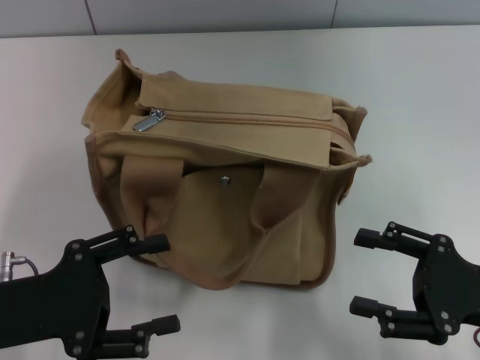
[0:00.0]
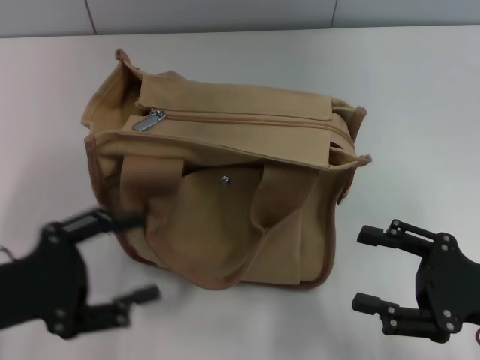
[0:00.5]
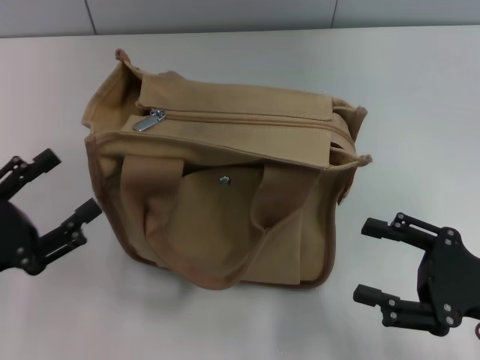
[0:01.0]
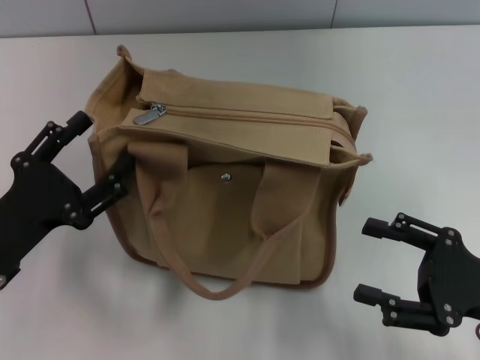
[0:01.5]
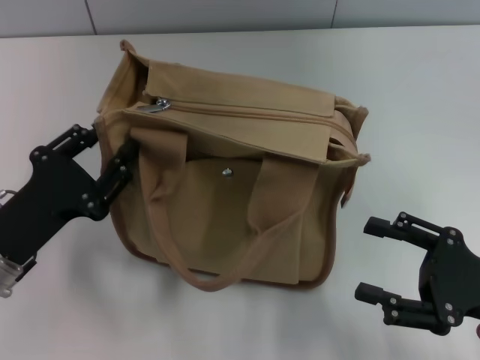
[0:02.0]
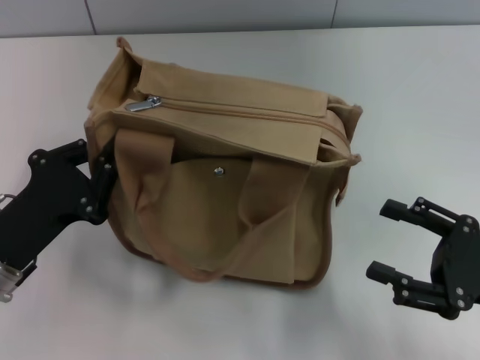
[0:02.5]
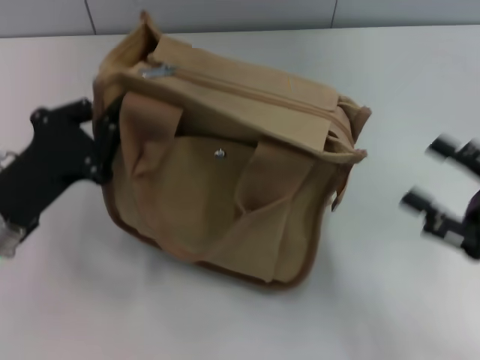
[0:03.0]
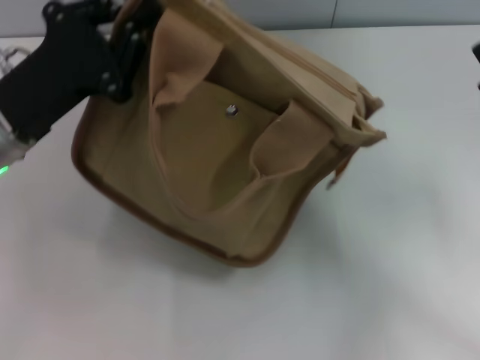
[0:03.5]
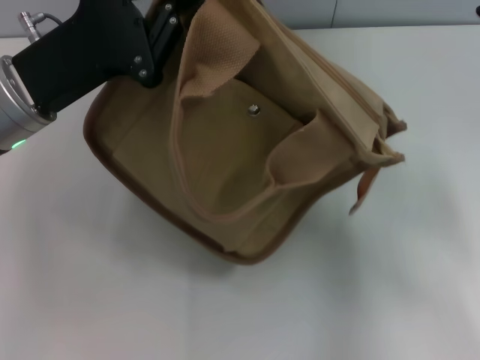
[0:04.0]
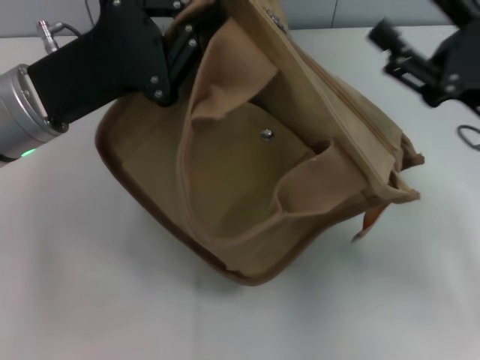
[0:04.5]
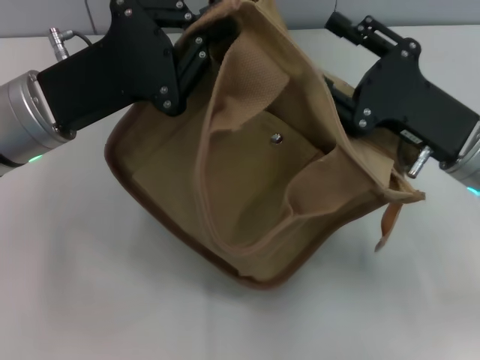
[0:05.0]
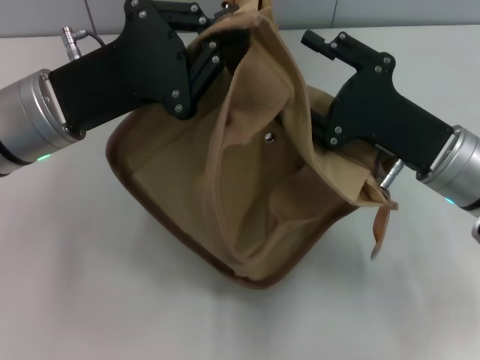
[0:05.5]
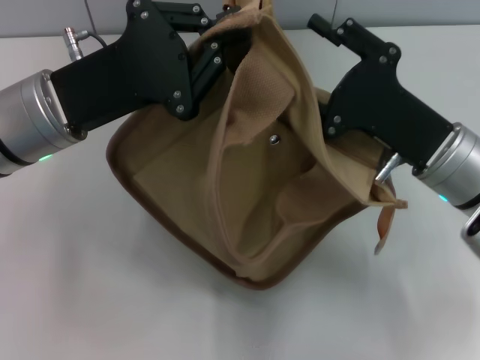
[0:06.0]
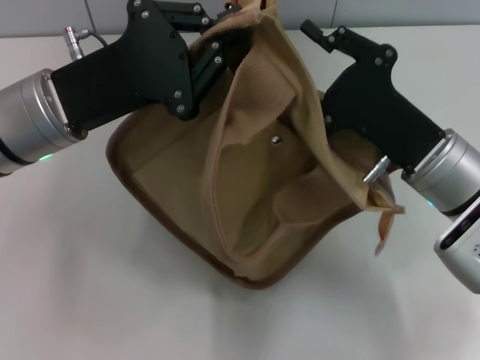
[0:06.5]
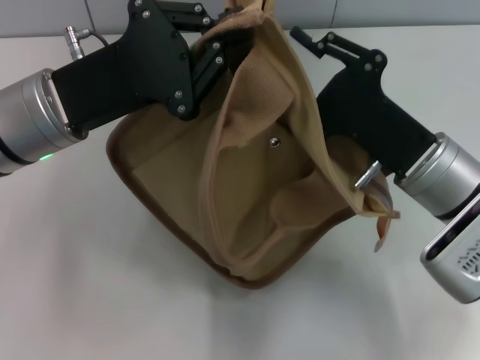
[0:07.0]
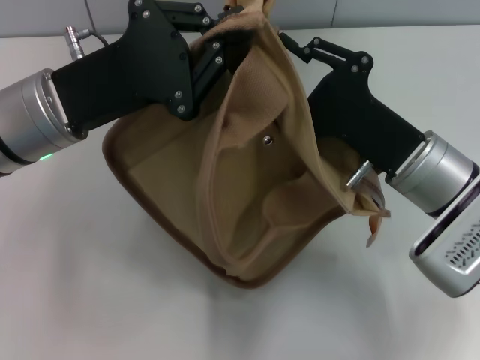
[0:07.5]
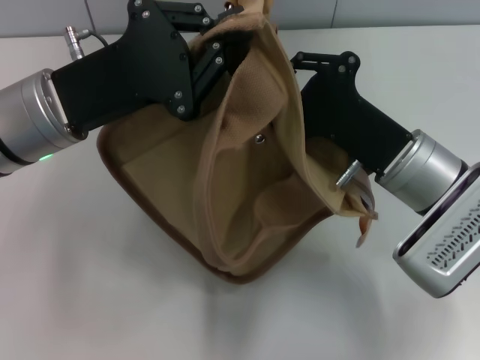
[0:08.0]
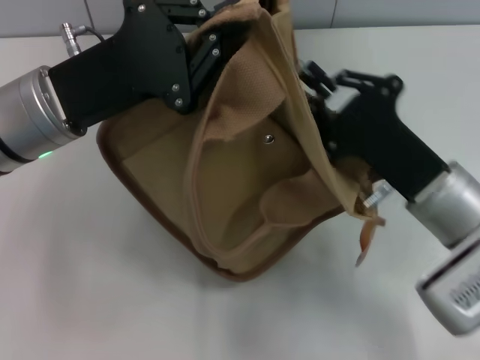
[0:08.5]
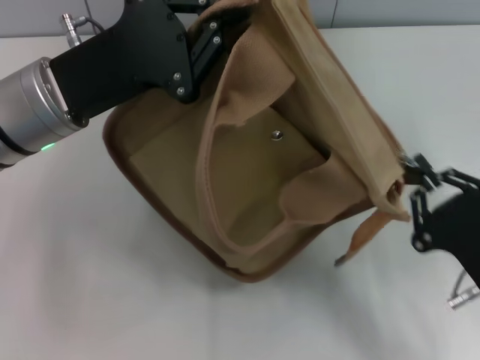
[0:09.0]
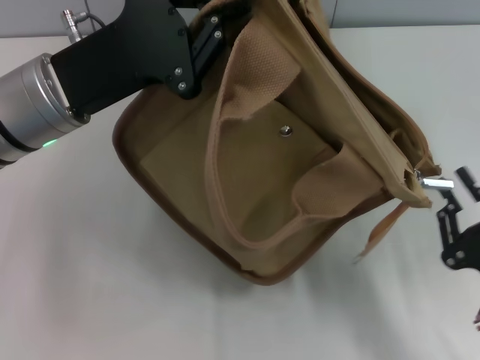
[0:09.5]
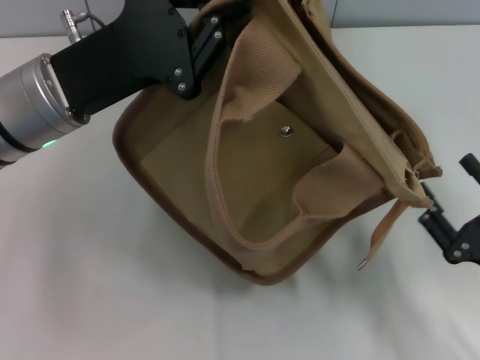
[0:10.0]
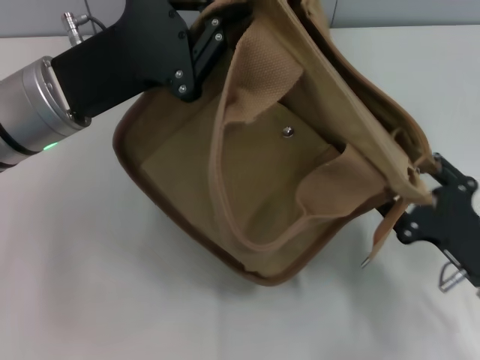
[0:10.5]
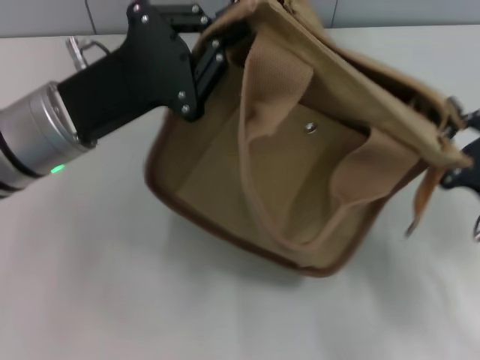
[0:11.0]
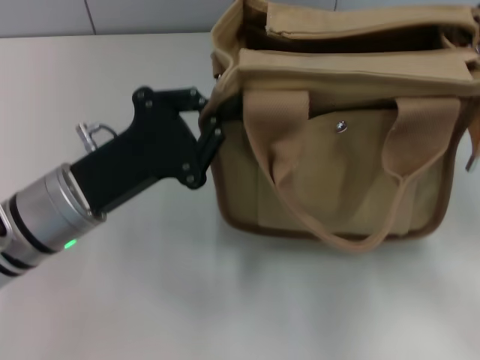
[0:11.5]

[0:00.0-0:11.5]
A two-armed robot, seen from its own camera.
Step, 0:00.0 to 0:09.5: Pull open the zipper with your right hand.
0:02.0 to 0:04.0: Both grippers travel together forward and upward, approximately 15 cm. The left gripper closes its fingers.
0:04.0 to 0:06.0: The right gripper shifts roughly 10 cm to the left.
0:06.0 to 0:07.5: There are only small adjustments of the grippers.
0:07.5 to 0:09.5: The right gripper shifts approximately 20 cm backward and to the right.
0:09.5 to 0:11.5: The right gripper heads forward and upward, covering approximately 15 cm, and opens, then closes again. The left gripper goes approximately 10 cm downward and backward.

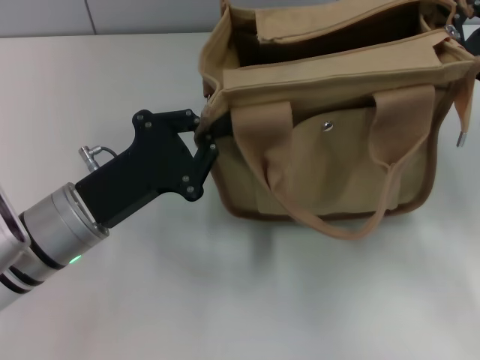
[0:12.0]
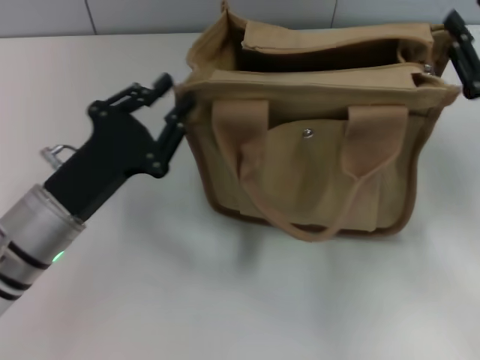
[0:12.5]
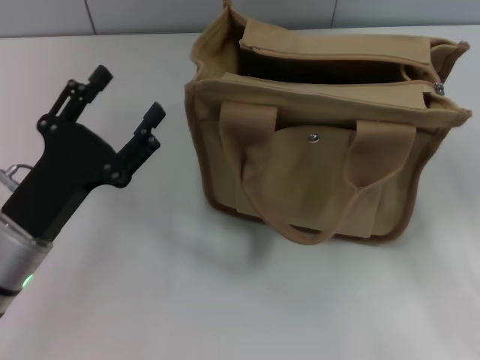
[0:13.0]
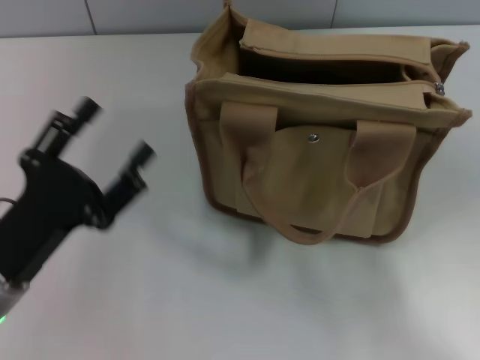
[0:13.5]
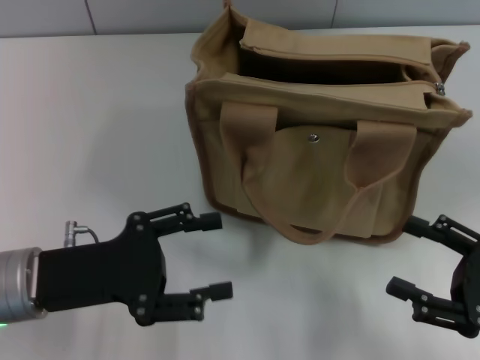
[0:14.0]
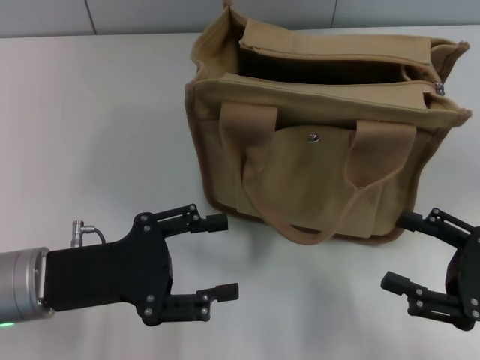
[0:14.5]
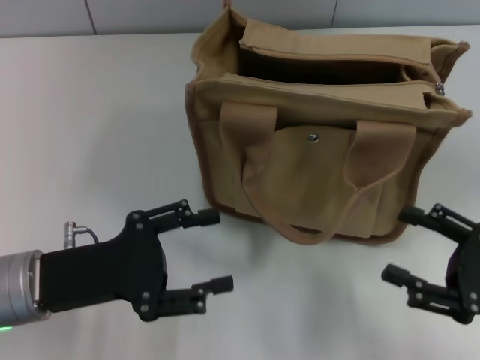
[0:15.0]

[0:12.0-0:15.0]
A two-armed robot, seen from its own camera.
0:12.0 to 0:13.5: The left gripper is displaced backward and to the left by some 10 cm, and opens. Meanwhile the right gripper heads backward, covering approximately 20 cm, and opens.

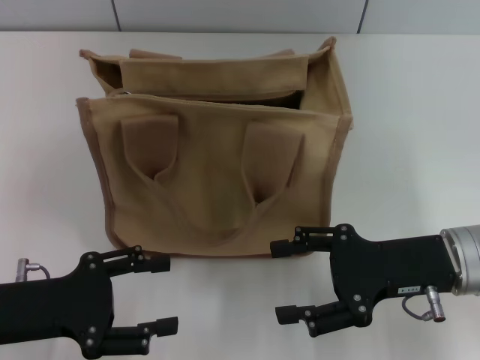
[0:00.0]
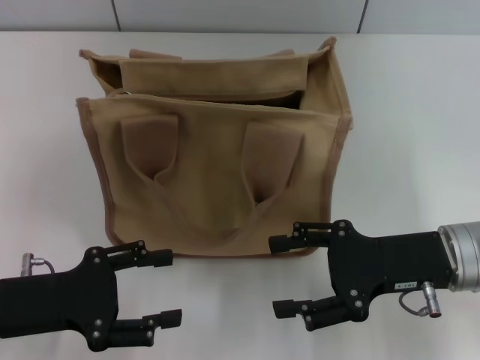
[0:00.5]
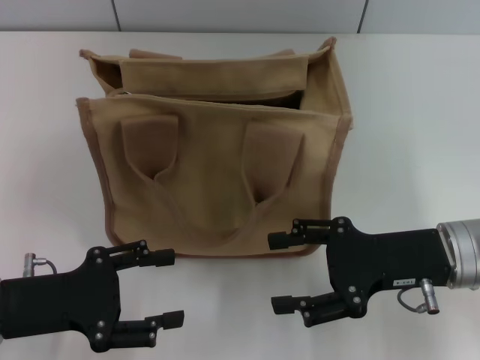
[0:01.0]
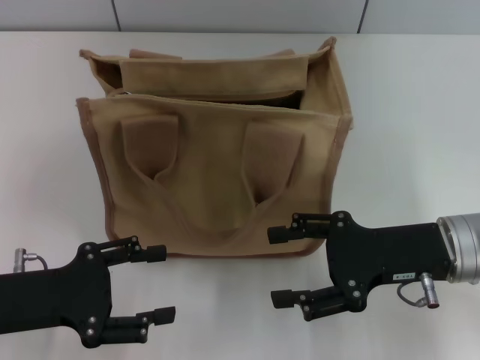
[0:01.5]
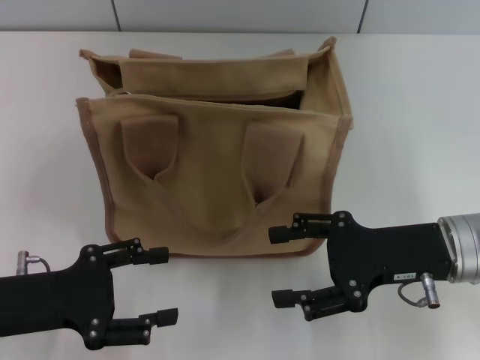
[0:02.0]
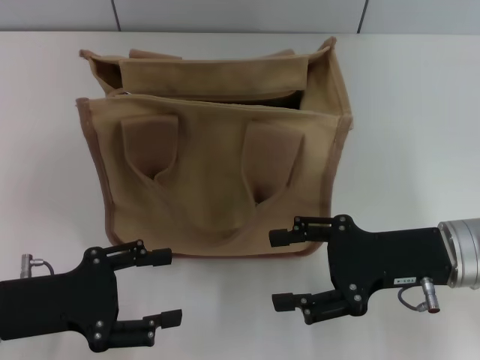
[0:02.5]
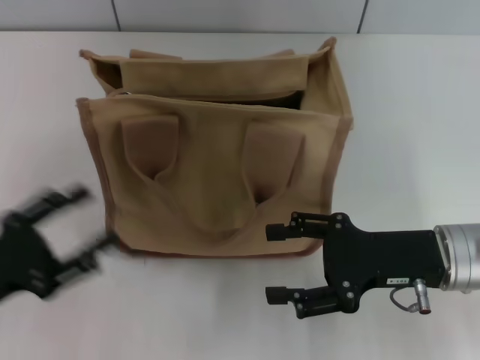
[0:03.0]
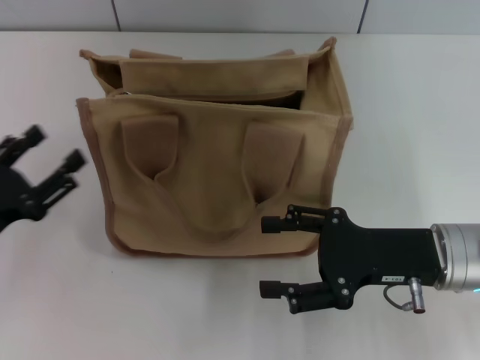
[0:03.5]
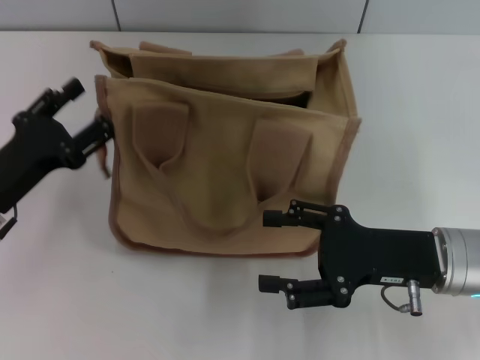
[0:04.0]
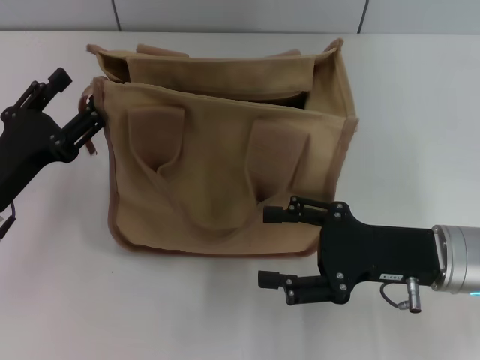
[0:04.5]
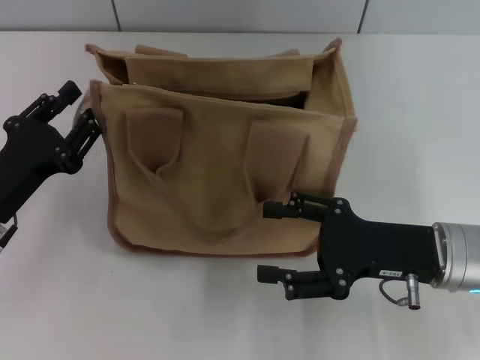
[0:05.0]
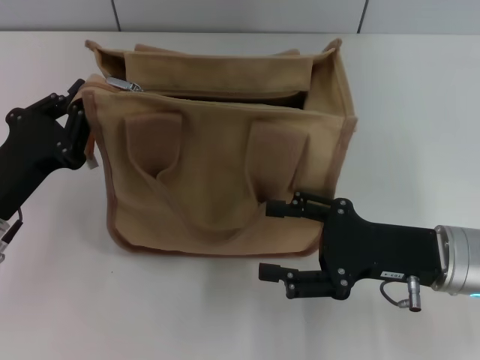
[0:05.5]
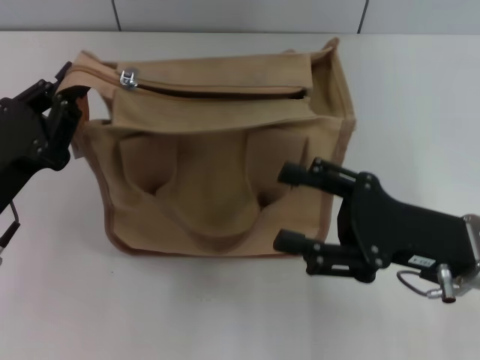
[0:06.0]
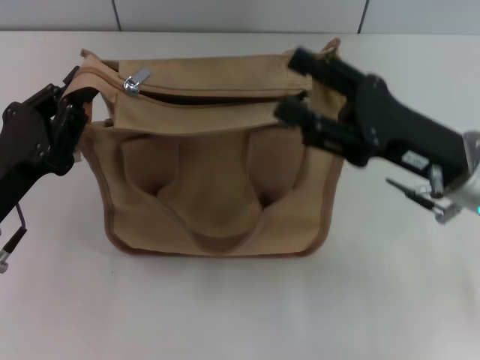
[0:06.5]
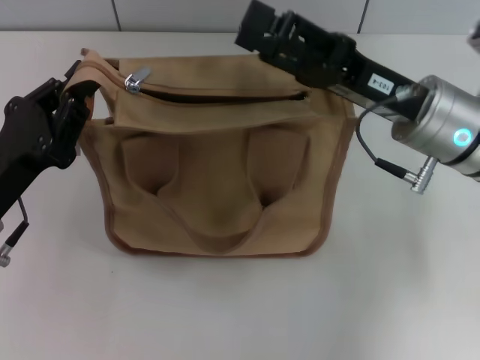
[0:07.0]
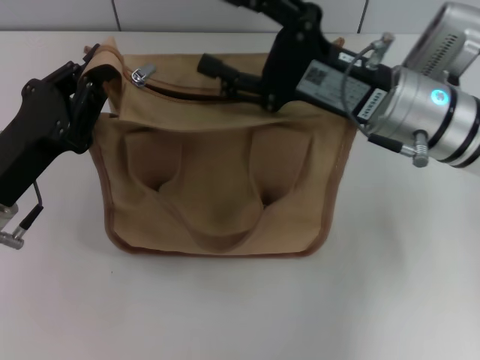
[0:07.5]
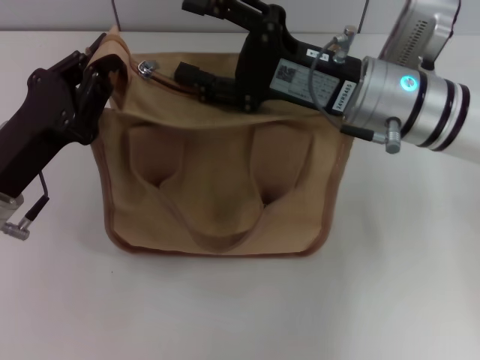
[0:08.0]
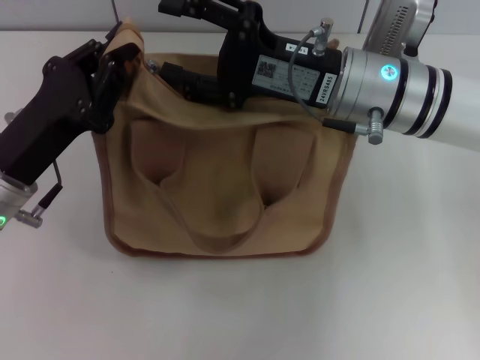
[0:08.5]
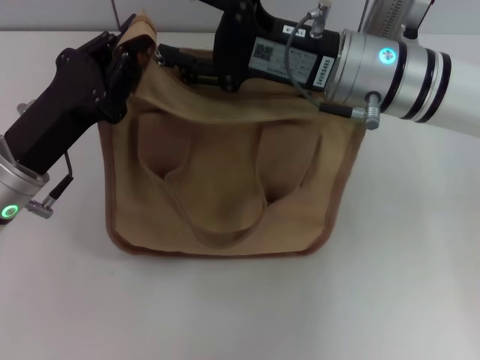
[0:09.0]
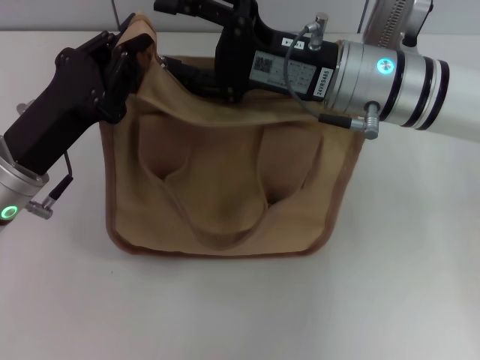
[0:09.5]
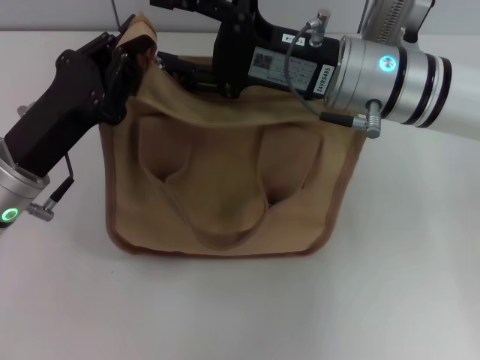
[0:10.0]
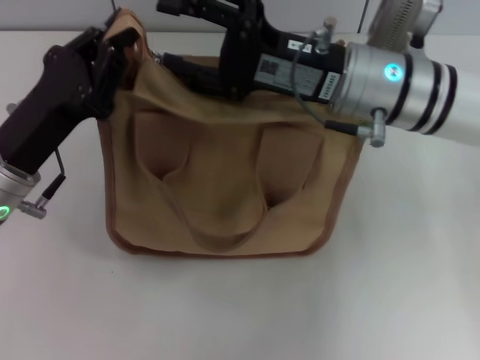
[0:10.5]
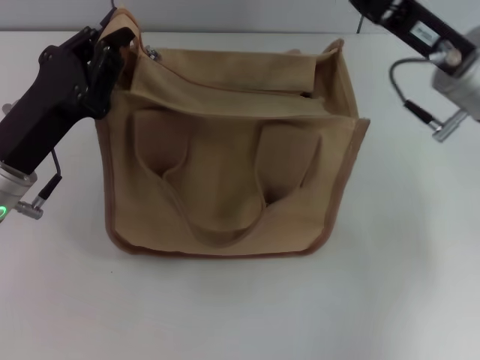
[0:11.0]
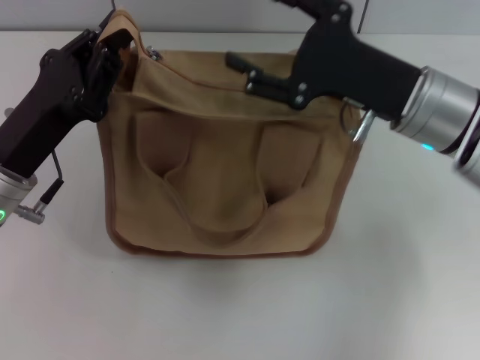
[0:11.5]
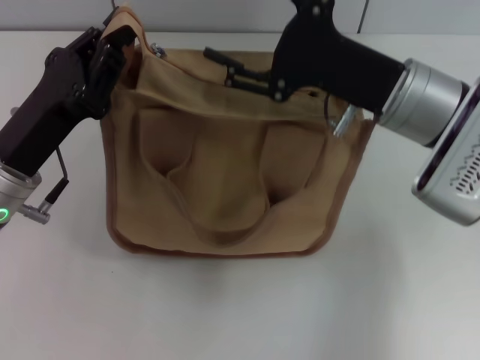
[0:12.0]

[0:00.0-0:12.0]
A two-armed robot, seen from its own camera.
0:00.0 to 0:02.0: The two grippers keep their place.
0:02.0 to 0:04.0: The left gripper is displaced forward by approximately 5 cm.
0:04.0 to 0:06.0: The left gripper closes up.
0:06.0 to 0:08.0: The right gripper shifts approximately 15 cm forward, to the left and upward.
